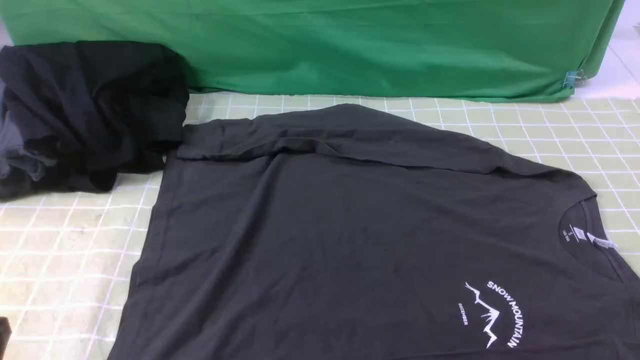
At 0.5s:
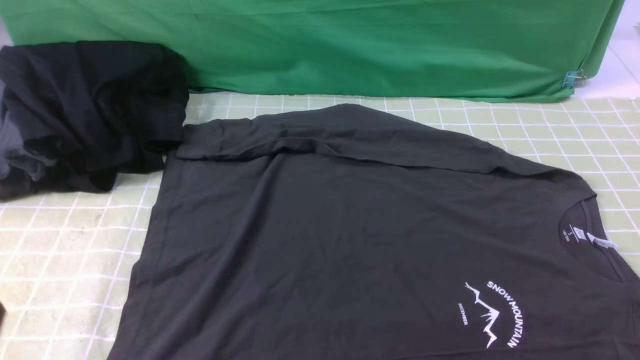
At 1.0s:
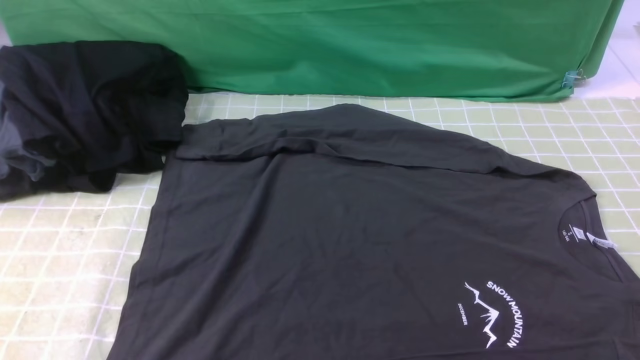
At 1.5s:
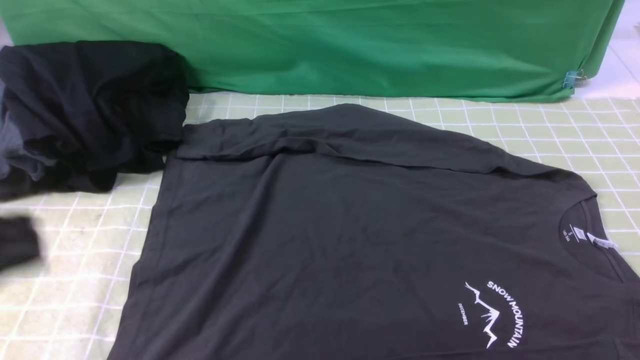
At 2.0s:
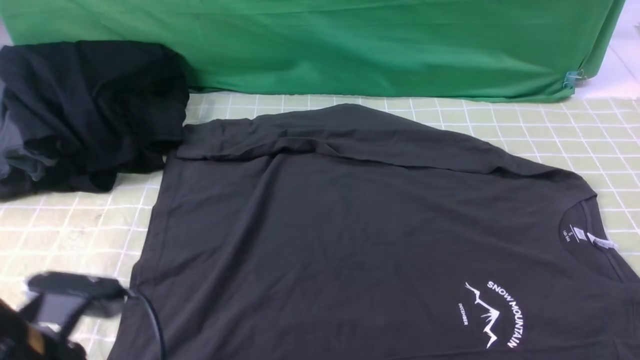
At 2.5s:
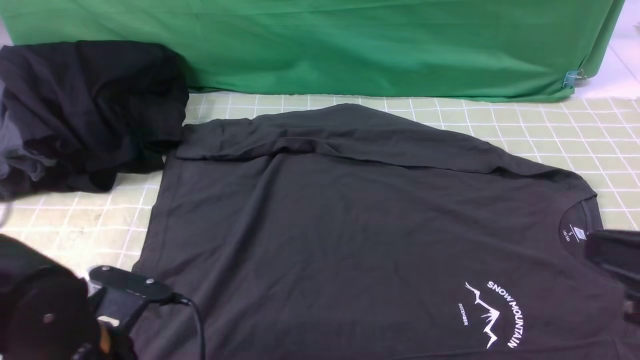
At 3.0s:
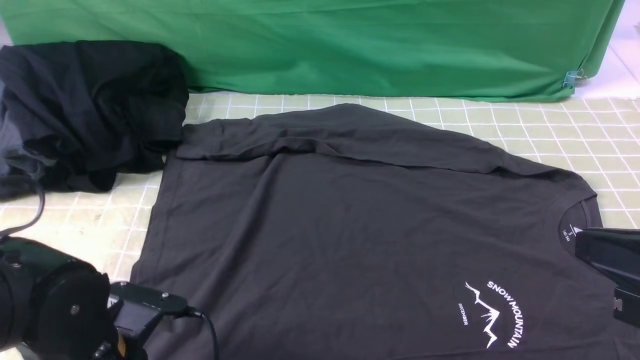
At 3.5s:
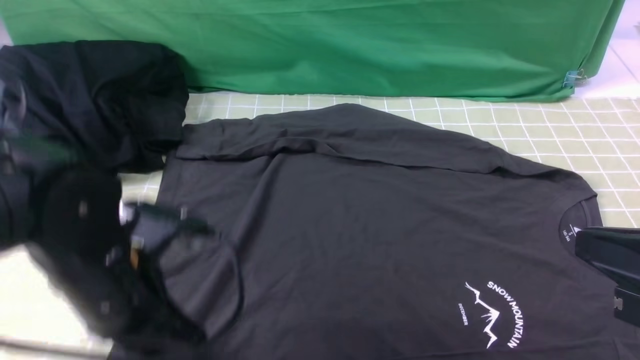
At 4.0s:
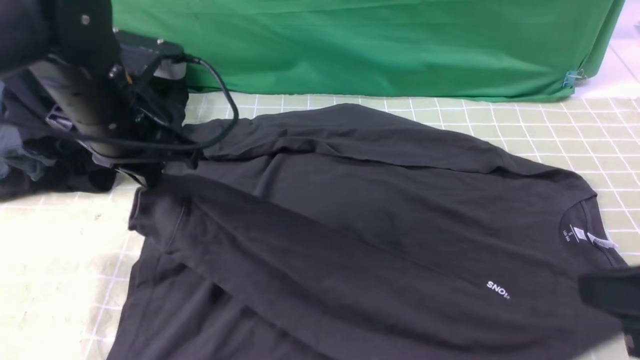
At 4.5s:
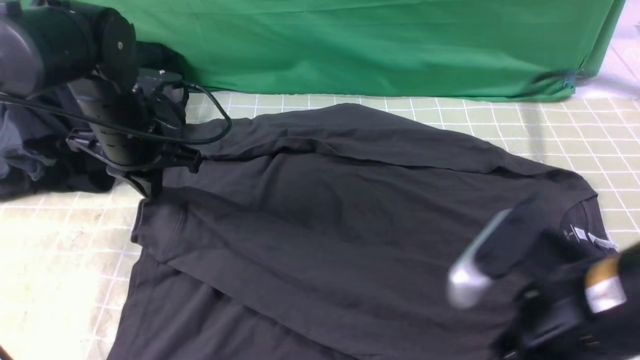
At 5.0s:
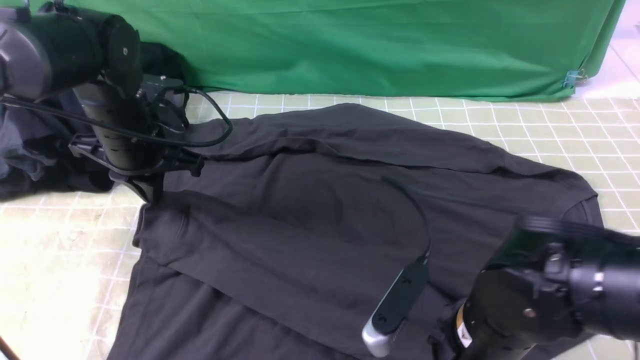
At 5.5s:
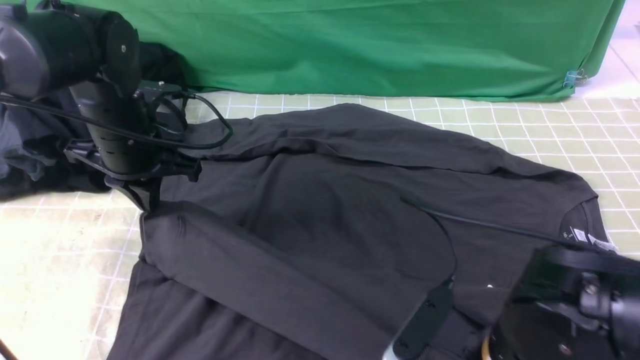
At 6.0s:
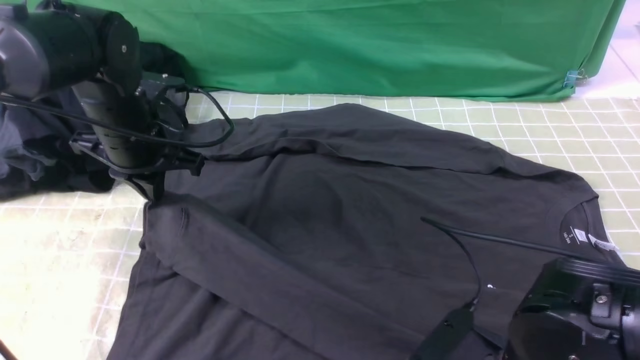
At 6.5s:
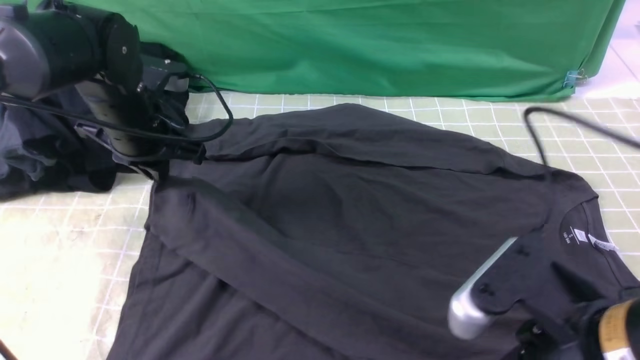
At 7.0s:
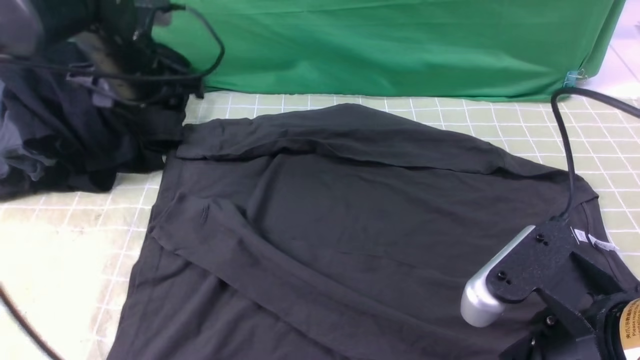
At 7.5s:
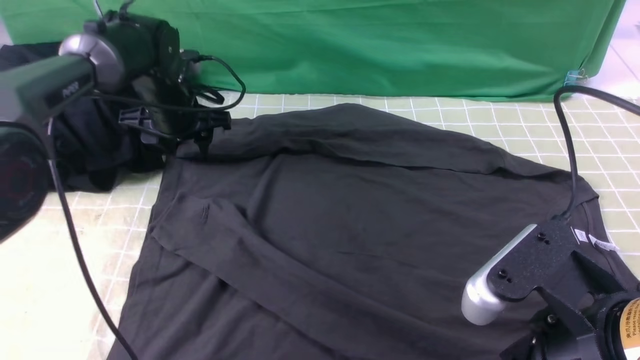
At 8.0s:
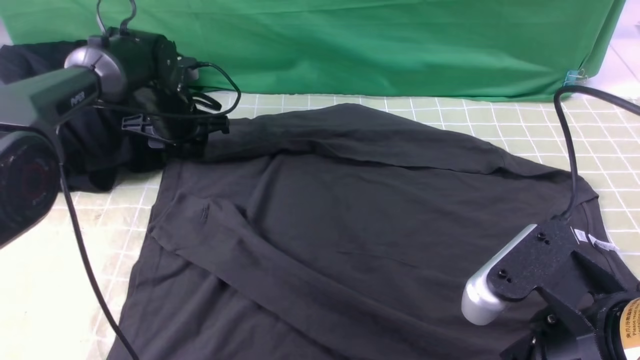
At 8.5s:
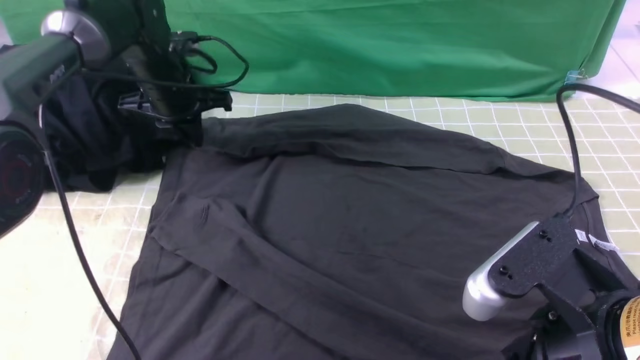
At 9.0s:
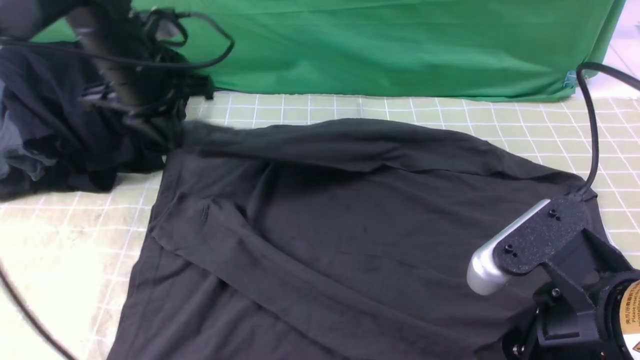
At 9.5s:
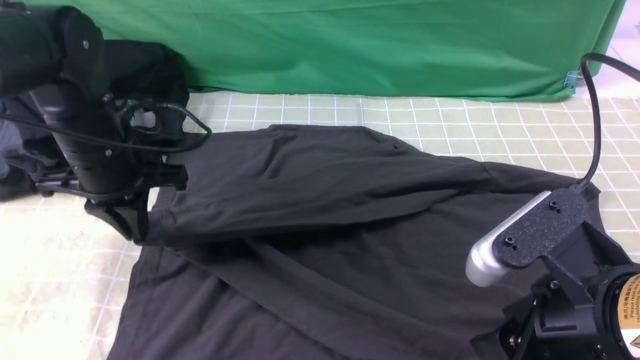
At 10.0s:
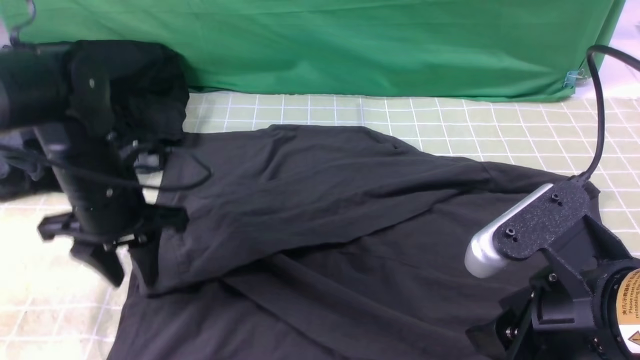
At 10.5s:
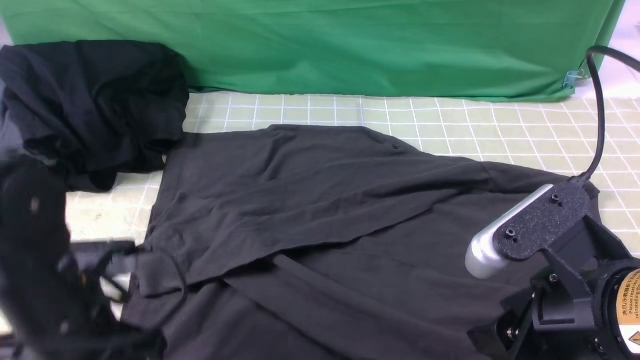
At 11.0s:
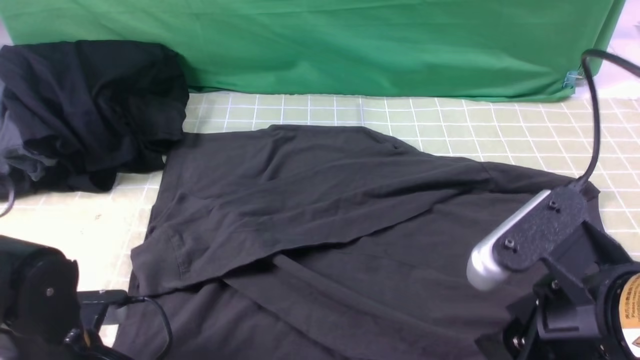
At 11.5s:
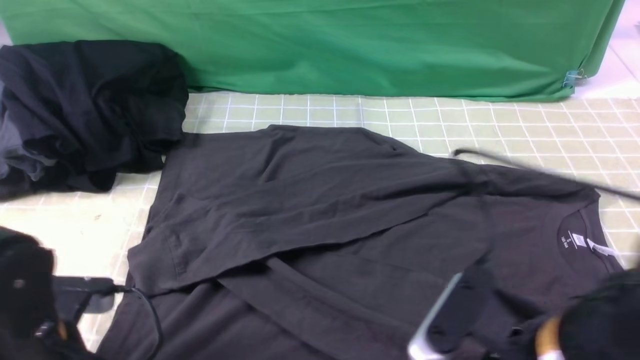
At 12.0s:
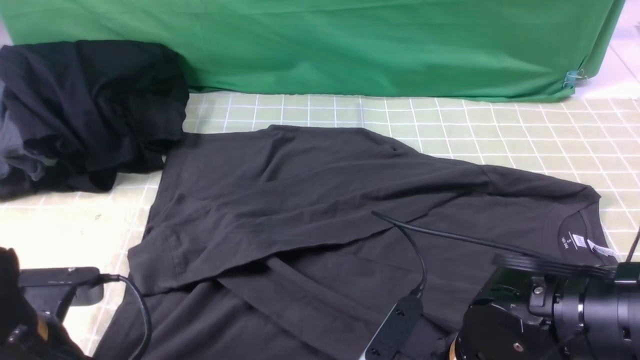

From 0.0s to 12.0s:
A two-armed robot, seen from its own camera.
Step, from 0.0s to 3.0s: use the left arm to clamp the cuff closest to it.
Step, from 3.5s to 6.5s: use the left arm to drag and place the cuff at the centered position on the left edge of the fabric.
Step, from 7.0s to 8.0s: use the left arm to clamp the cuff farthest from it.
Step, from 8.5s to 10.0s: use the left arm to drag and drop the cuff onto the cuff closest to the left arm.
Step, from 10.5s to 12.0s: use both arms simultaneously to clamp the lower edge of the clothing fabric.
From 0.0s to 2.0s: The left gripper moves forward and to the right, roughly 10 cm, and reaches some 15 cm upward, then returns.
From 2.0s to 4.0s: The right gripper heads to the left and forward, covering roughly 10 cm. Meanwhile the left gripper goes some 20 cm forward and upward, and opens and closes again.
From 4.0s to 6.0s: The right gripper goes approximately 15 cm downward and to the left, and opens up. Meanwhile the left gripper travels downward and forward by roughly 10 cm.
From 6.0s to 8.0s: The left gripper shifts roughly 15 cm forward and downward, and opens, while the right gripper goes some 10 cm upward.
From 8.0s to 10.0s: The left gripper shifts approximately 20 cm backward, and closes, then reopens.
From 10.0s to 12.0s: The right gripper goes roughly 15 cm downward and to the left. Meanwhile the left gripper goes about 15 cm backward, and closes up.

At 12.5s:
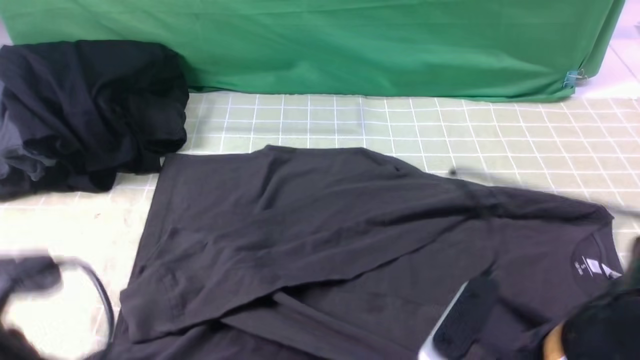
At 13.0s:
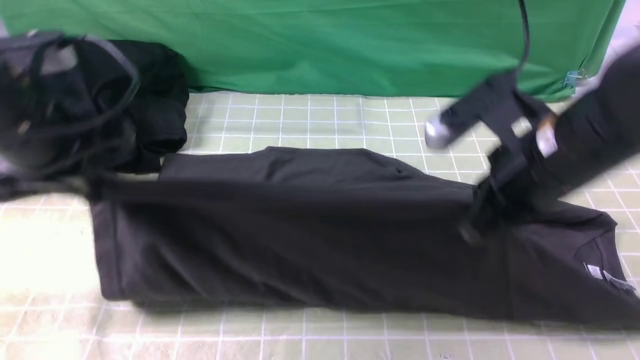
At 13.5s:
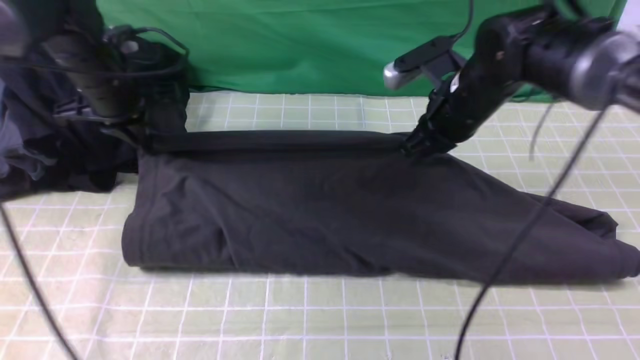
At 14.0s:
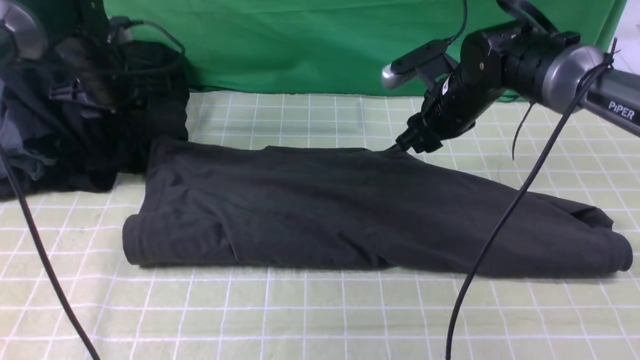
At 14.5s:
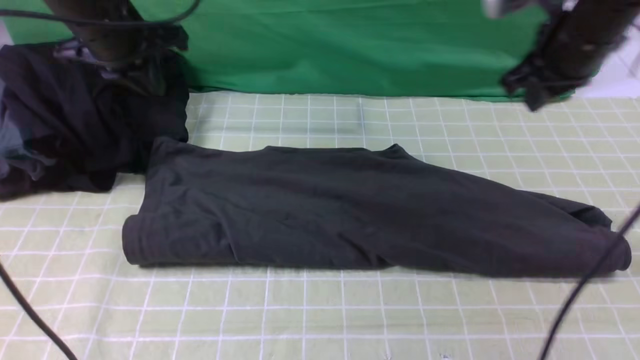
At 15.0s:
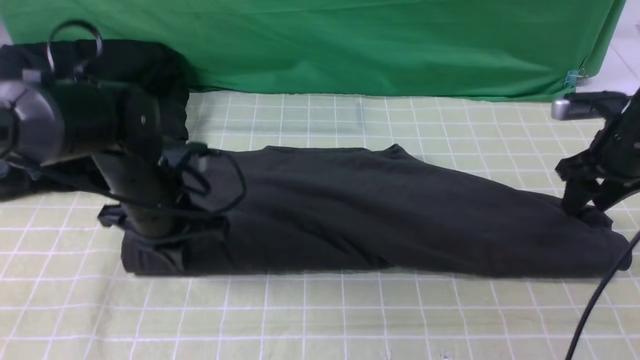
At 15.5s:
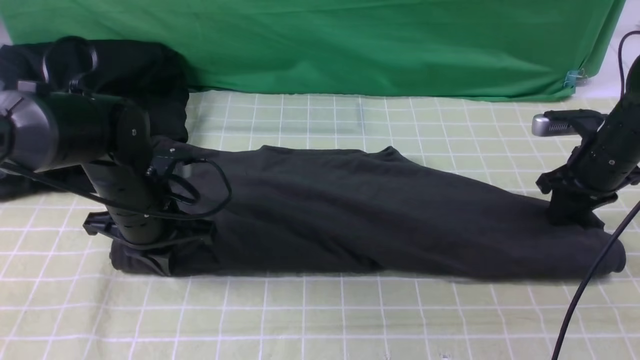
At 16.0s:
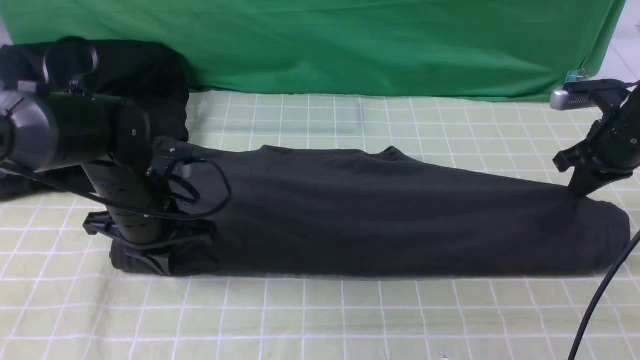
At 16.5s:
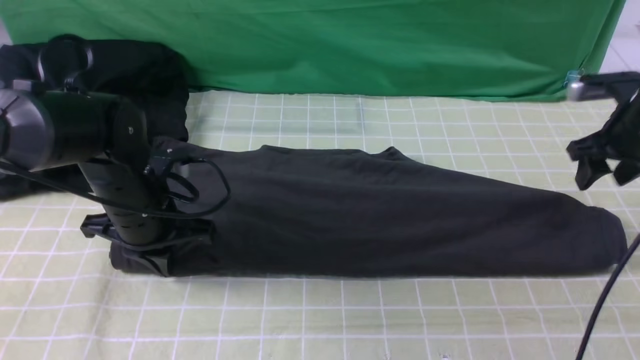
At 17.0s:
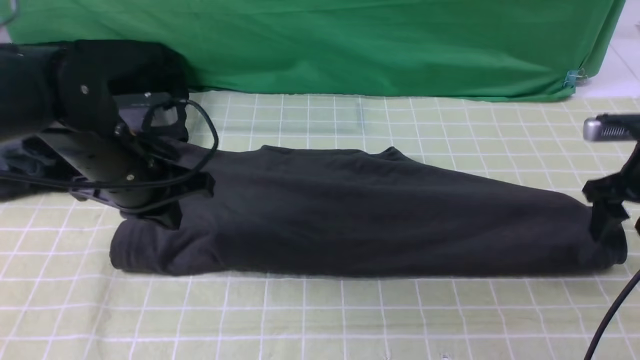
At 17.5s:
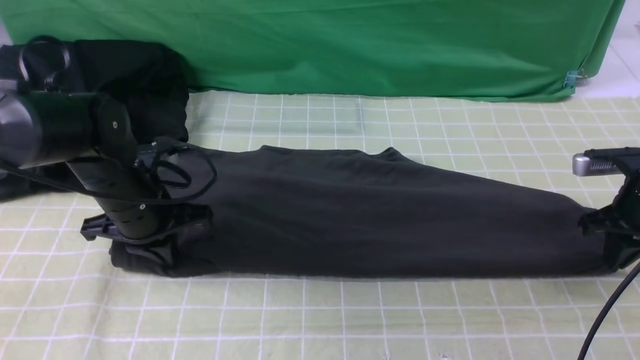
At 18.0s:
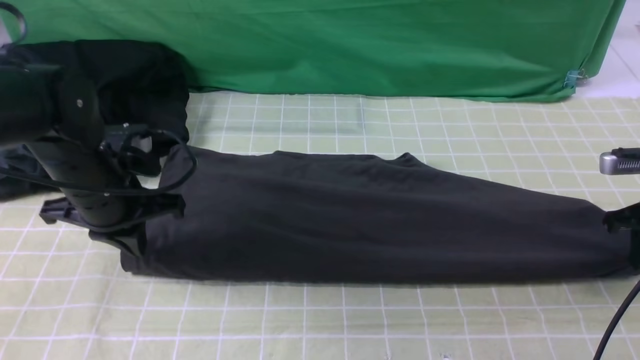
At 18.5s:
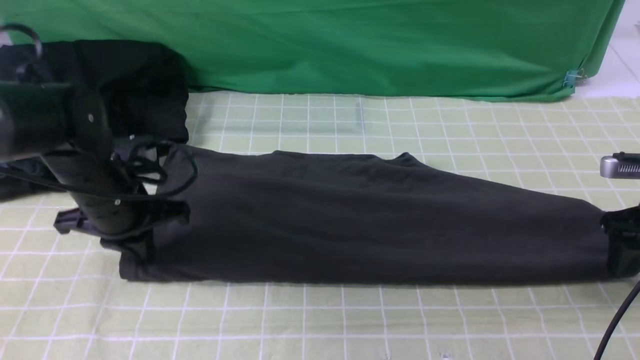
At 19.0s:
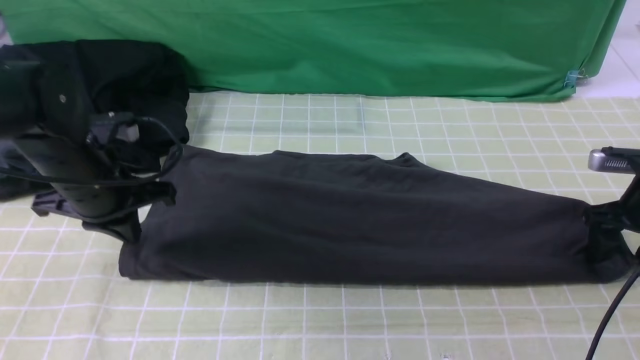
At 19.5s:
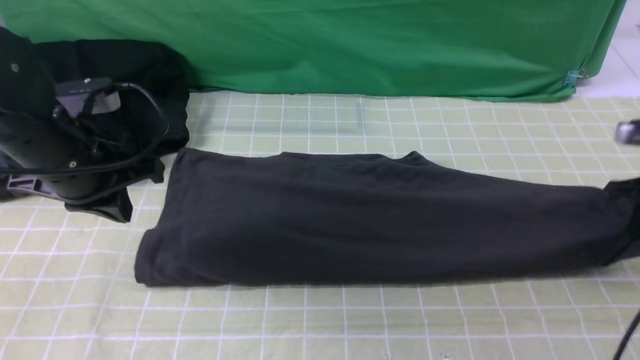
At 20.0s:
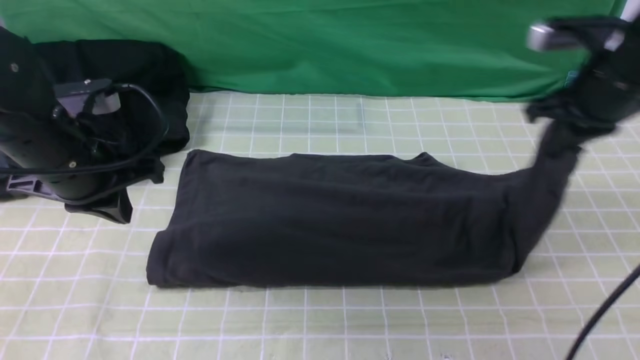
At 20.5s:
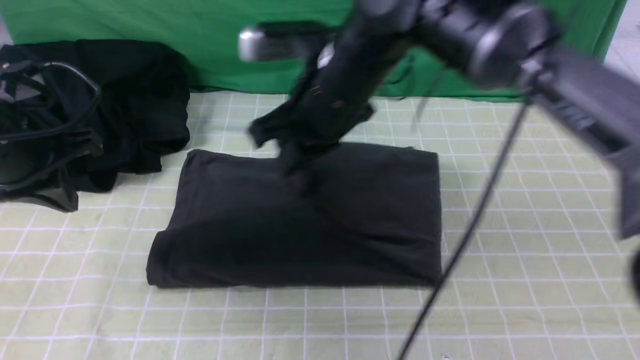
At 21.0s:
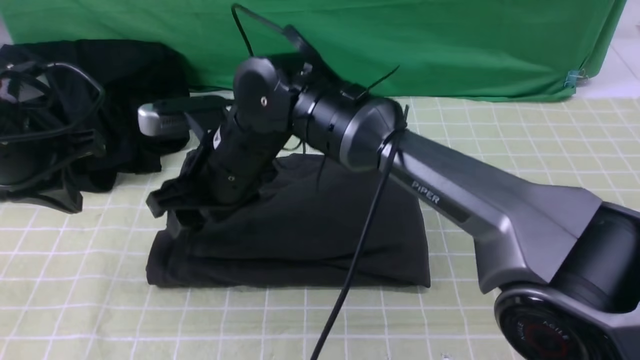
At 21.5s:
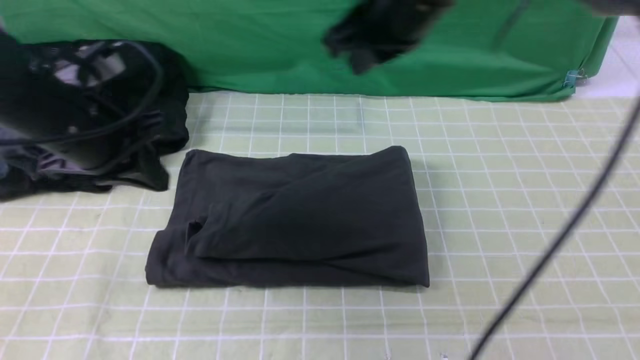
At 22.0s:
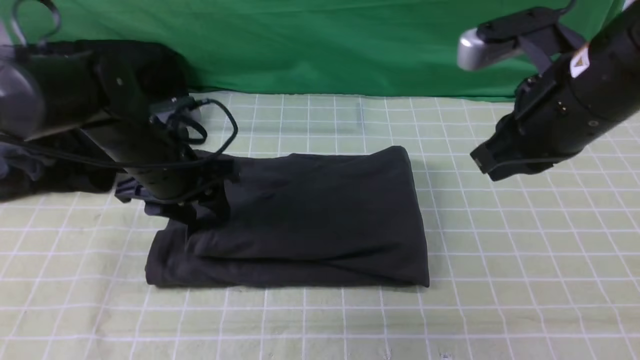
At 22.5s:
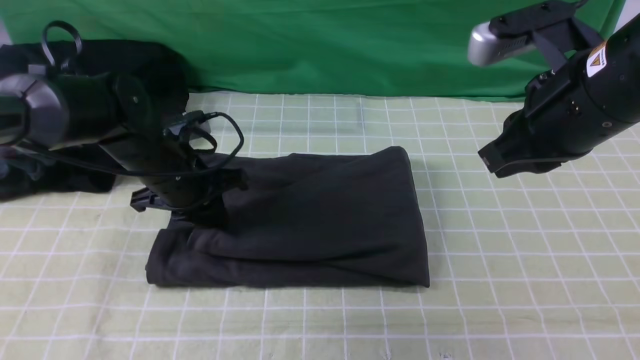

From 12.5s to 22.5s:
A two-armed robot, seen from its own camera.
Step, from 12.5s to 14.0s: use both arms to drag the lower edge of the fabric forward and fold it over the upper edge.
Step, from 14.5s to 17.5s: use the right arm to clamp the right edge of the fabric.
Step, from 18.0s to 21.0s: use the right arm to drag the right edge of the fabric to the left and folds it over the left edge.
From 12.5s to 14.5s: Both grippers move forward, approximately 25 cm. The right gripper opens and closes again. The left gripper opens, then closes once more.
From 14.5s to 16.5s: The left gripper moves downward and backward, some 15 cm; the right gripper heads to the right and downward, covering about 15 cm, and opens.
From 16.5s to 18.5s: The right gripper moves backward, some 5 cm, and closes, then opens again.
From 18.5s to 20.5s: The right gripper moves to the left, about 40 cm, and closes its fingers. Meanwhile the left gripper goes some 10 cm upward and to the left.
From 20.5s to 22.5s: The right gripper moves to the right and backward, about 20 cm, and opens and closes again, while the left gripper is displaced to the right, downward and forward by roughly 15 cm, and opens, then closes once more.
